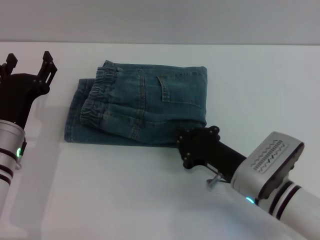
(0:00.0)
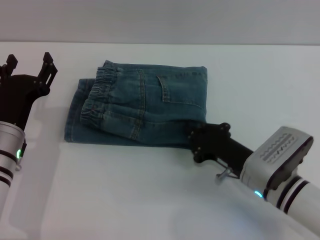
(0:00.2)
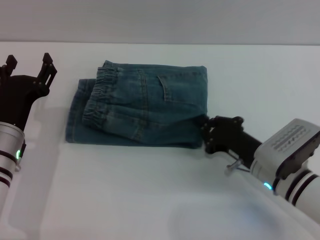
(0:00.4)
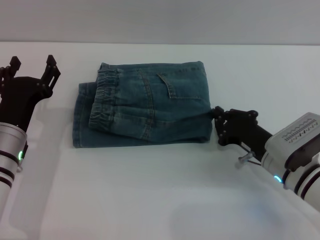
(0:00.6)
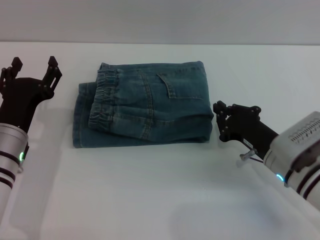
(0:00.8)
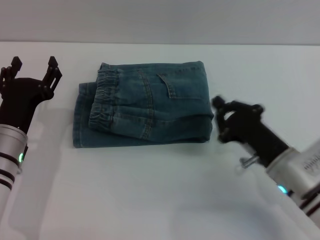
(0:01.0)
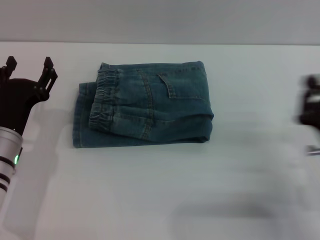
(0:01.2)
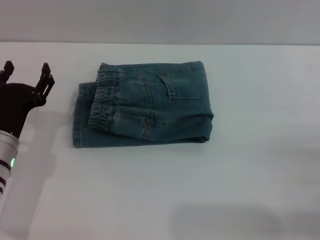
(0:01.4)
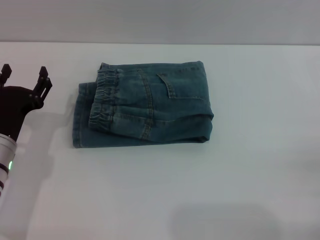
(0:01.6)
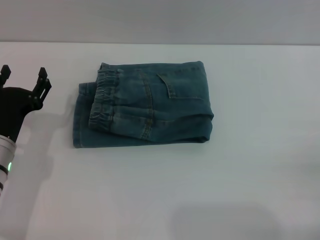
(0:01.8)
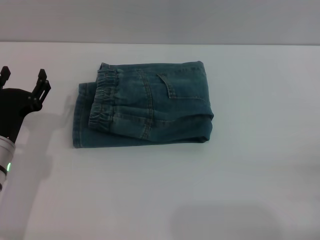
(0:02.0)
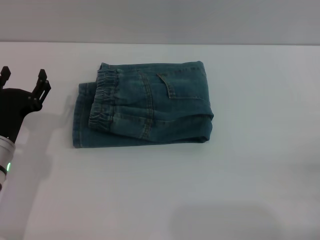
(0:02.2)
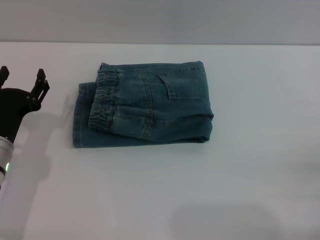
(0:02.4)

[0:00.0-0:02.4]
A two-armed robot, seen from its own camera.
0:00.0 to 0:01.2: The right gripper goes roughly 10 cm to the right.
0:01.2 to 0:02.4: The right gripper is displaced to the right and backward by approximately 10 cm, and opens up.
